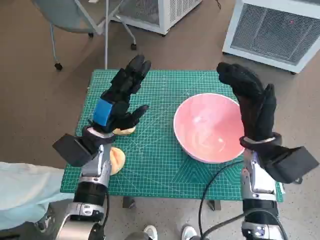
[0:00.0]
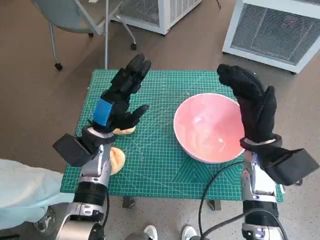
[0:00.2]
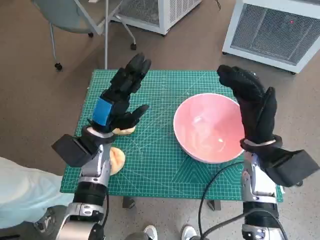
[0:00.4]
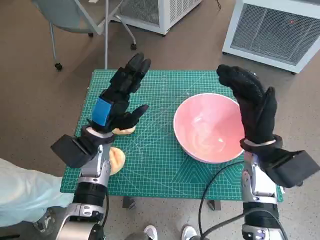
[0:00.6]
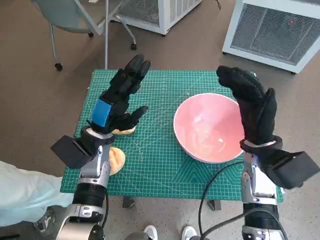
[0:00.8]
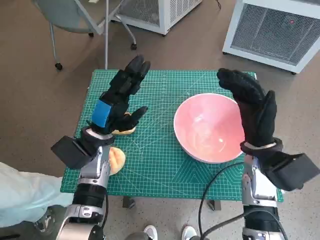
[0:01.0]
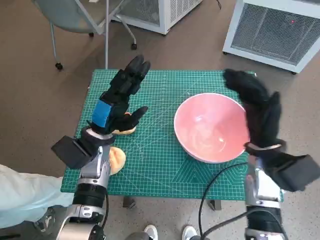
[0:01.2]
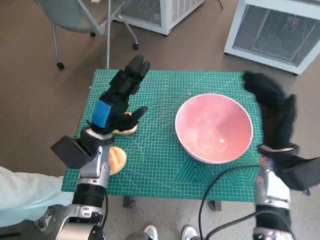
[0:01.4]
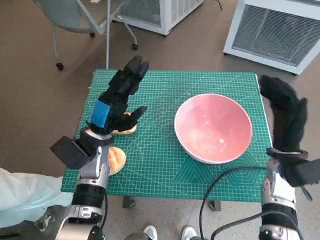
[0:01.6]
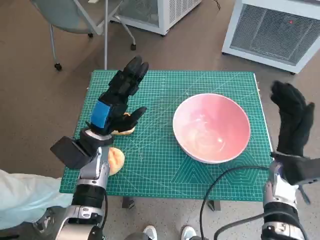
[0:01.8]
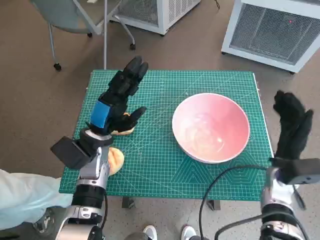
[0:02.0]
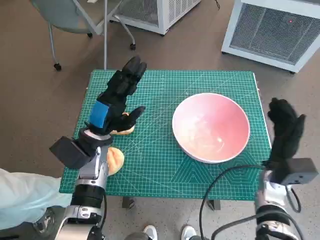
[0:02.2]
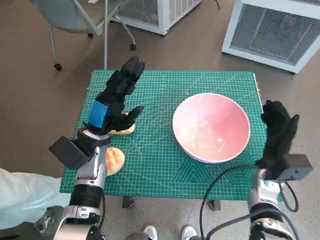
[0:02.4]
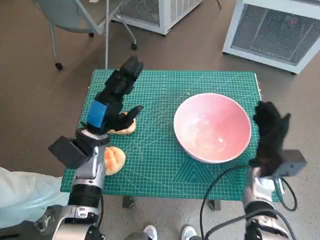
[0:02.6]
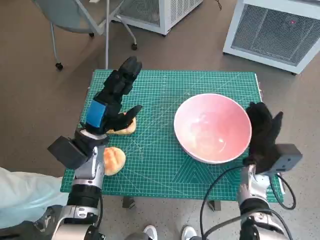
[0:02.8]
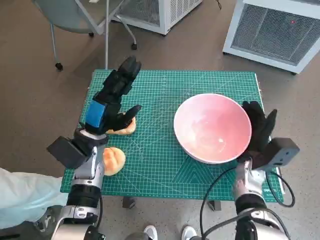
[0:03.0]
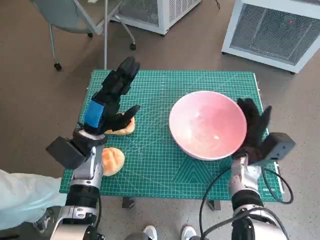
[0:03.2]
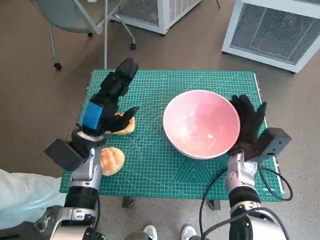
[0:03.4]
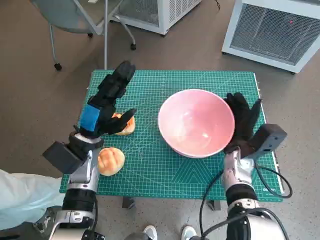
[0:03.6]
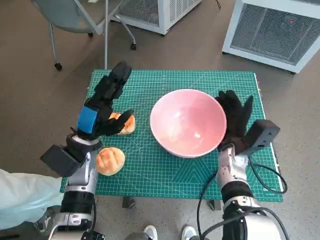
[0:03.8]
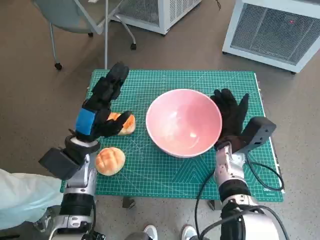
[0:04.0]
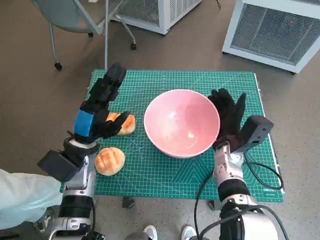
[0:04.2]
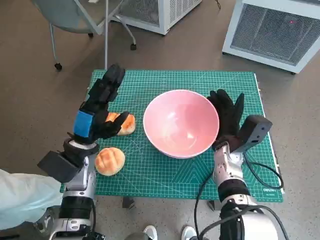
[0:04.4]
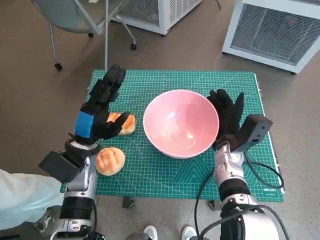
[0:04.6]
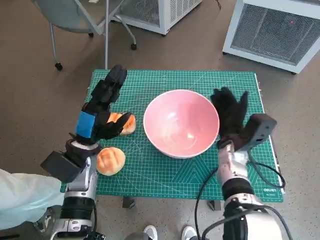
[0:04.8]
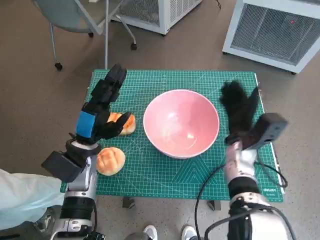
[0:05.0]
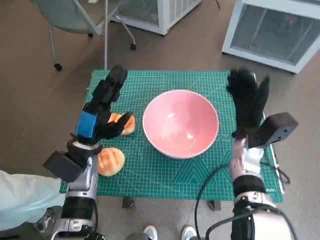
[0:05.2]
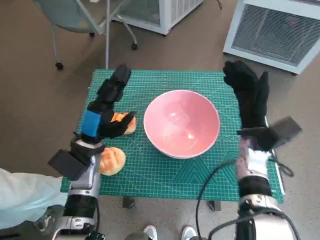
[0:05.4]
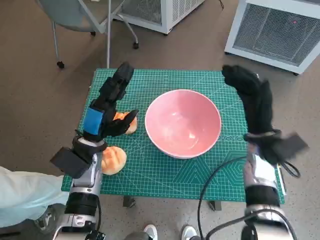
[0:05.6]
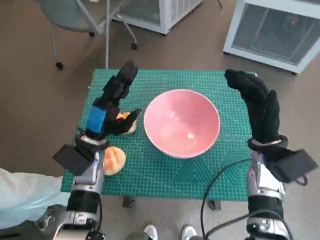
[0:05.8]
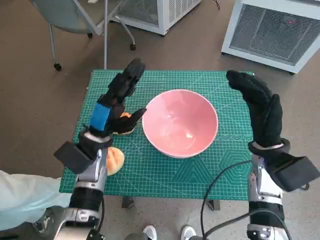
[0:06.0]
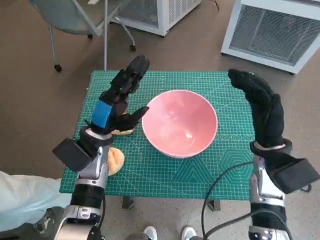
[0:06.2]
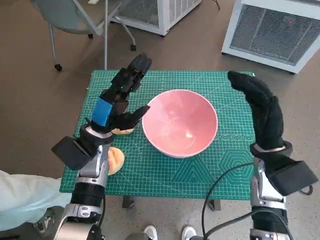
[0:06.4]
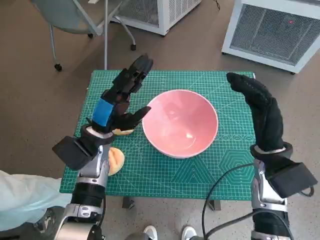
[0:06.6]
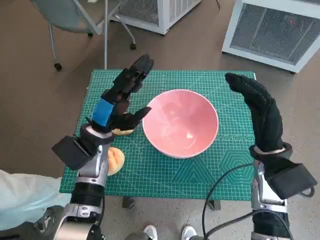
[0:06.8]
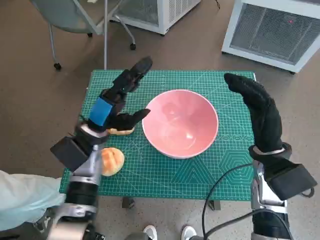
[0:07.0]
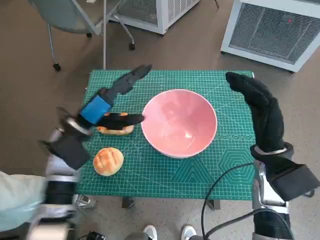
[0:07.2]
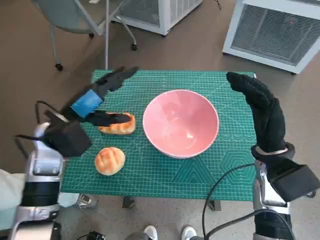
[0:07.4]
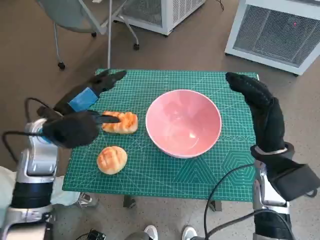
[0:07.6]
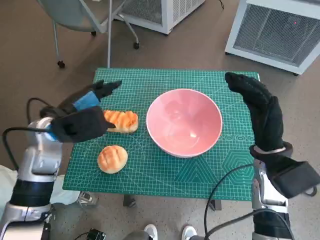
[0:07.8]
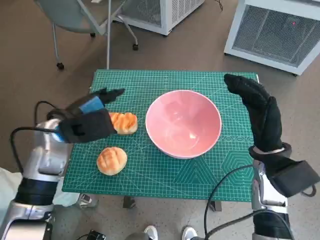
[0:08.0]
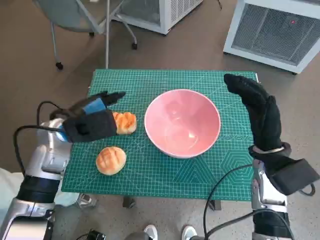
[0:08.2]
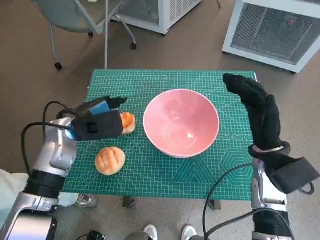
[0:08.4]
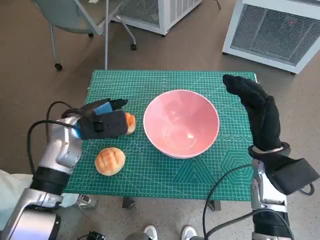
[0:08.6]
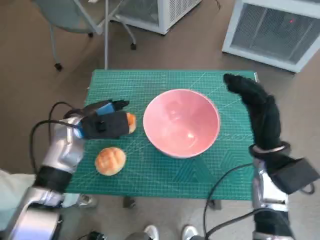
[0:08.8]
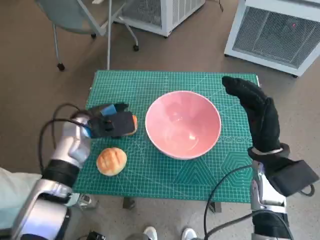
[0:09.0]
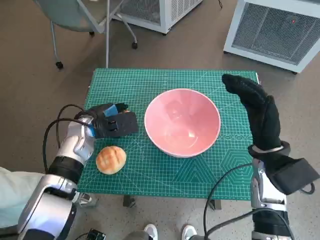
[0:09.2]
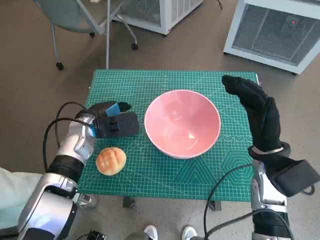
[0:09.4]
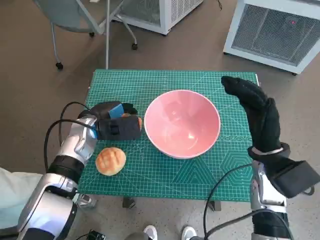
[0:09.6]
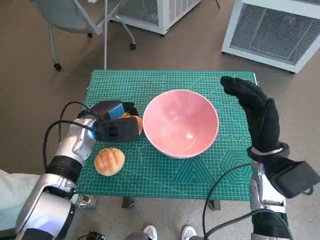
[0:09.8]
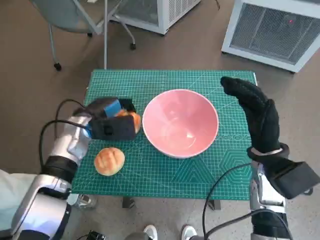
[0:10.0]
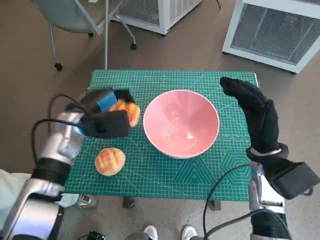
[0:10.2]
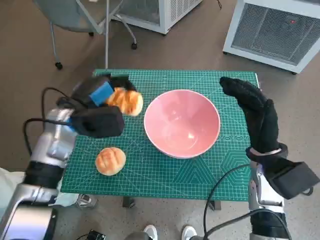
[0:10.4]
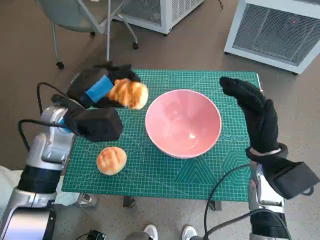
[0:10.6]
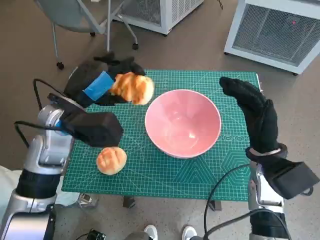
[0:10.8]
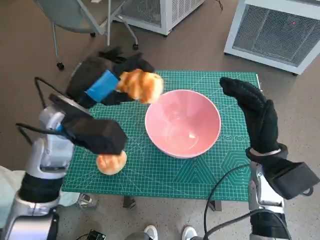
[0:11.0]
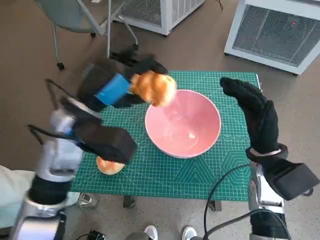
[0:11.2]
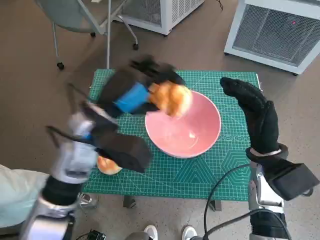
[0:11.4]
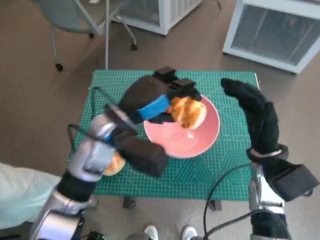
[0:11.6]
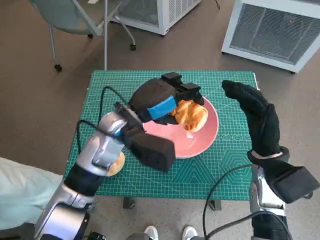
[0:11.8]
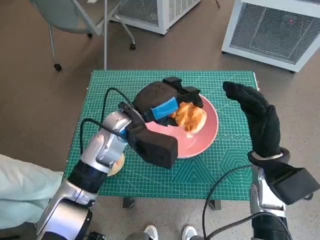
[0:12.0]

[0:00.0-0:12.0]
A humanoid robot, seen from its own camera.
Task of the whole recording: Push the bowl into the center of the table and put the bread into the bowl.
Step, 0:00.0 to 0:04.8: Move the pink bowl to the center of table with right hand.
Step, 0:05.0 to 0:09.6: Grasp the long bread with left hand.
0:01.6 to 0:03.0: The right hand is displaced downward by about 5 cm.
0:03.0 to 0:04.4: The right hand travels to the left by roughly 5 cm.
0:04.4 to 0:06.0: The right hand moves upward and to the right, some 10 cm.
0:06.0 to 0:07.6: The left hand heads upward and to the left, covering about 10 cm.
0:07.6 to 0:09.0: The left hand moves downward, some 5 cm.
0:10.4 to 0:12.0: The left hand goes some 10 cm to the right.

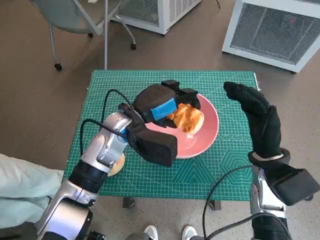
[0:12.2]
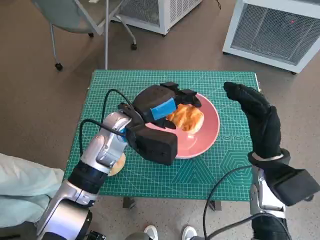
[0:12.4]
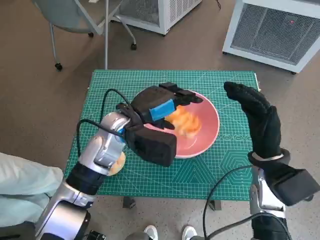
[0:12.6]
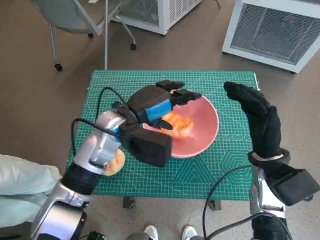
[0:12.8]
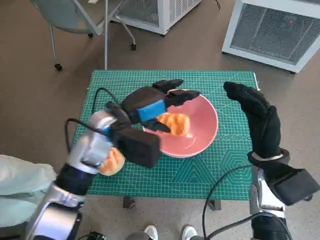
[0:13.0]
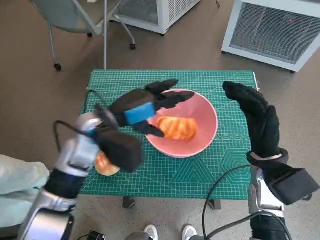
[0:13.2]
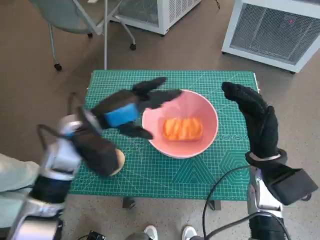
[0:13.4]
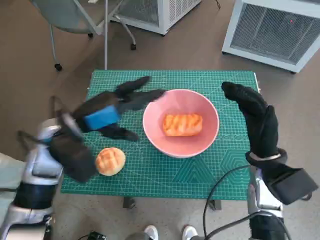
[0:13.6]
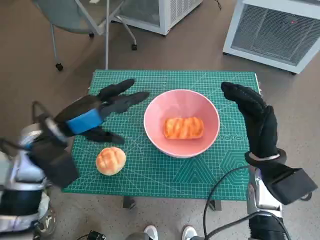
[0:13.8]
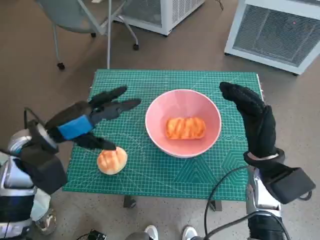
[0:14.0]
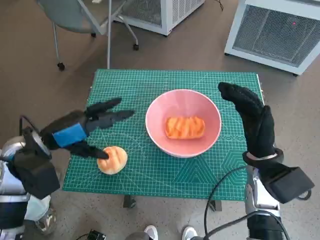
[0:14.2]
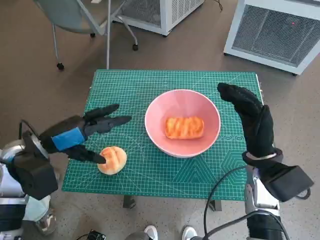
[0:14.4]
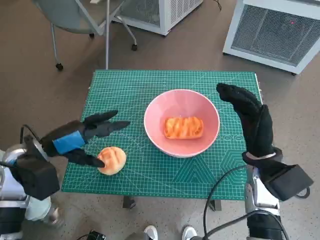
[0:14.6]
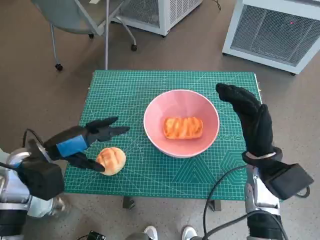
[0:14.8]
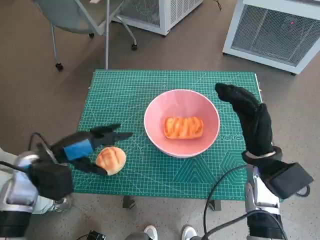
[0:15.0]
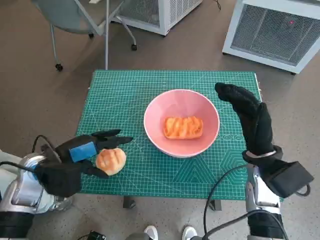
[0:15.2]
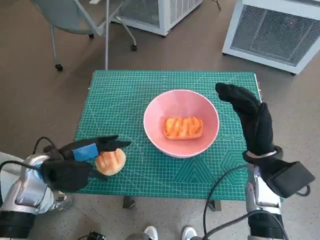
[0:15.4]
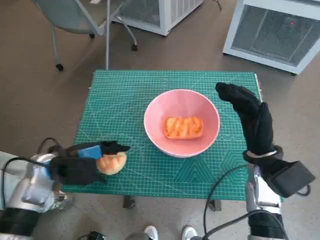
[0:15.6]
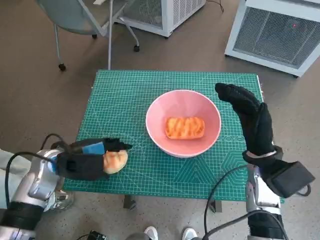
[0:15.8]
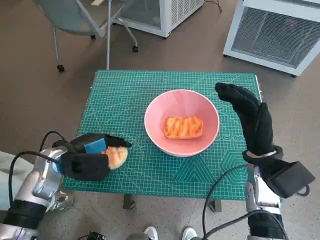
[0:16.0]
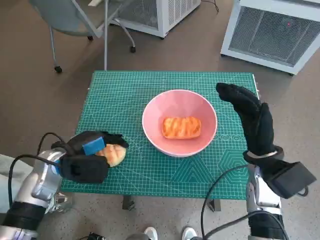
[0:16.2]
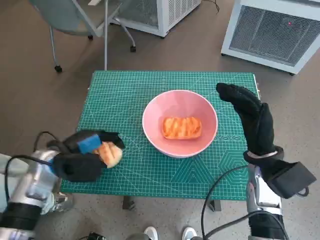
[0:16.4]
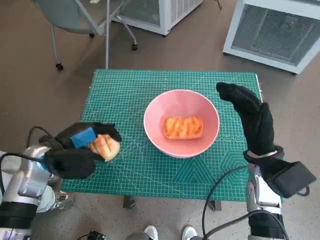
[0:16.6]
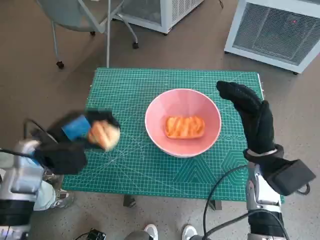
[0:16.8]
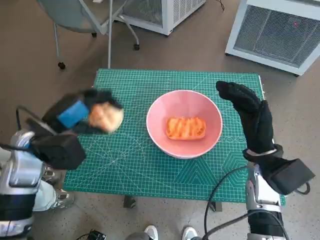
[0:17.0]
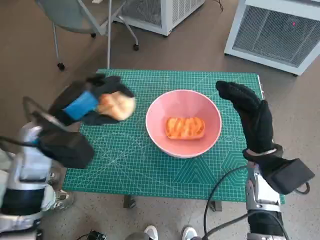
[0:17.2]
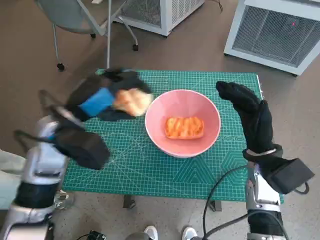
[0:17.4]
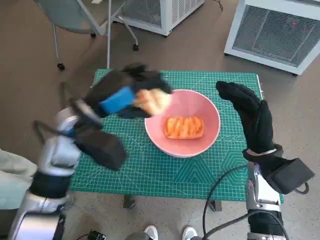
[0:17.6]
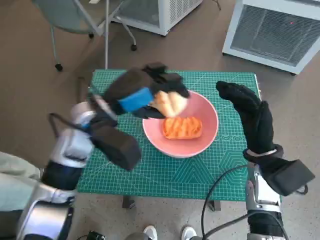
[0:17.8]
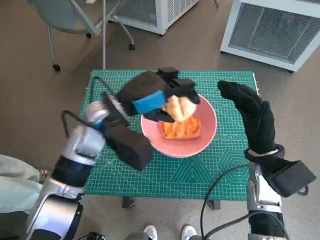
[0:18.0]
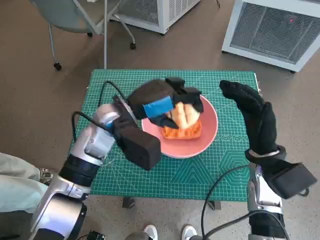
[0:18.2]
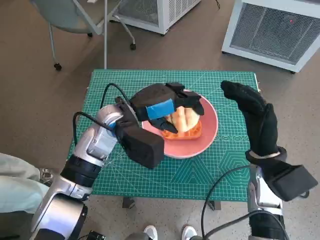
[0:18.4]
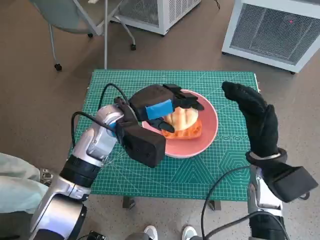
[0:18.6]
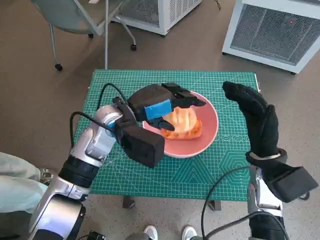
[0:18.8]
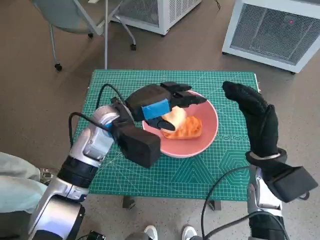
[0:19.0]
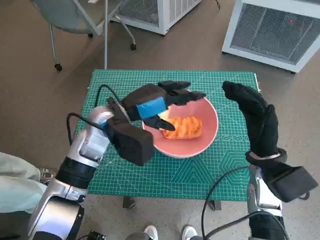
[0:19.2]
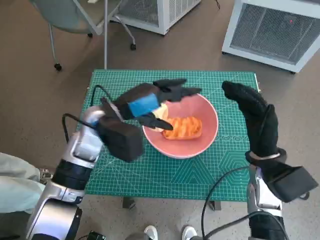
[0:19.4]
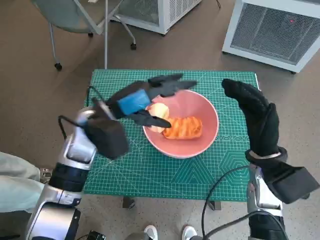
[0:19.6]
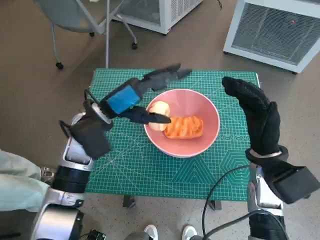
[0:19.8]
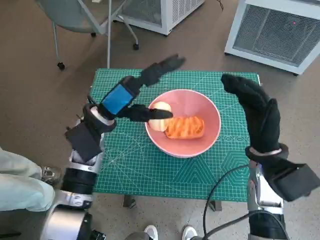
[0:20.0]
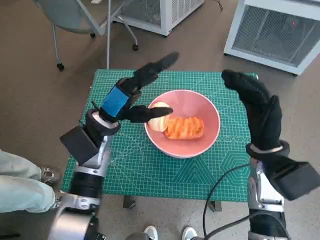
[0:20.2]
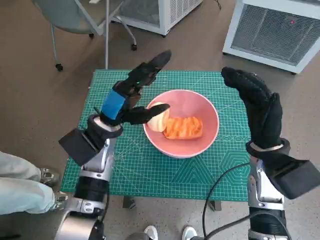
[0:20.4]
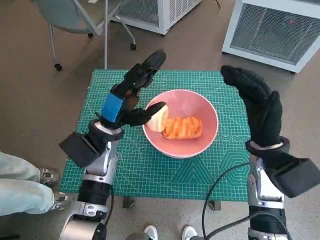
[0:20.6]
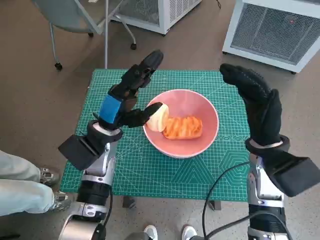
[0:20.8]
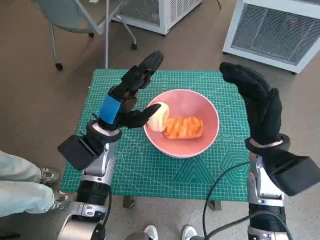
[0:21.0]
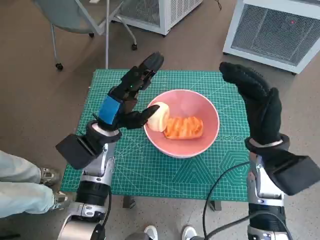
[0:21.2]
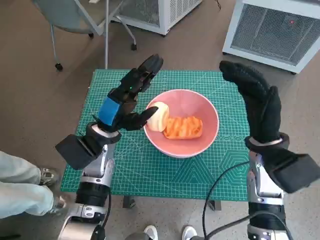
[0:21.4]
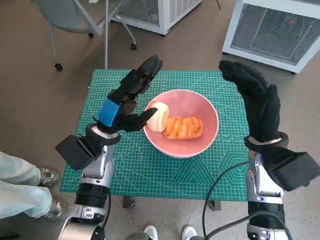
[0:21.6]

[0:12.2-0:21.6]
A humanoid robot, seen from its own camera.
Task of the whole recording: Push the bowl into the center of the table and put the bread into the bowl.
Step, 0:12.8 to 0:15.8: Grasp the round bread with left hand.
Step, 0:16.2 to 0:18.8: Place the round bread in pink bowl with left hand.
0:12.2 to 0:13.8: The left hand moves to the left, roughly 15 cm.
0:13.8 to 0:15.4: The left hand is displaced downward by roughly 5 cm.
0:15.4 to 0:17.0: The left hand moves upward, roughly 5 cm.
0:17.0 to 0:18.4: The left hand is displaced to the right by some 15 cm.

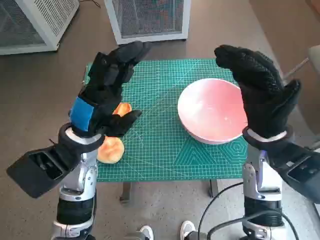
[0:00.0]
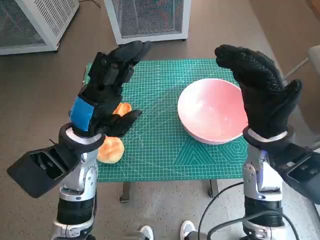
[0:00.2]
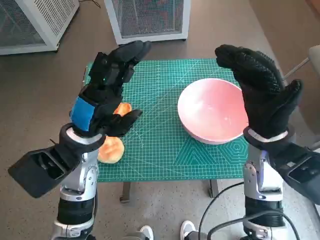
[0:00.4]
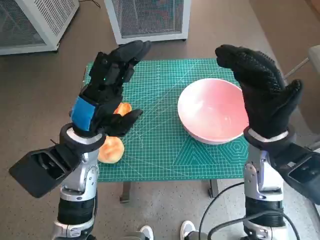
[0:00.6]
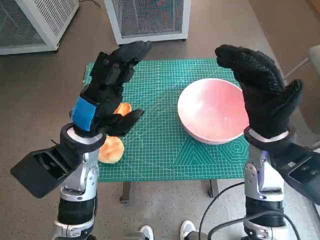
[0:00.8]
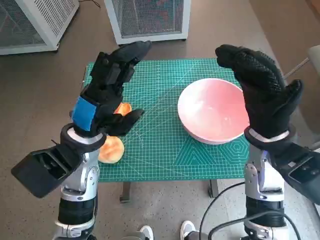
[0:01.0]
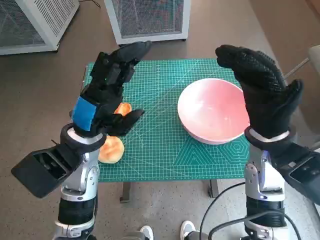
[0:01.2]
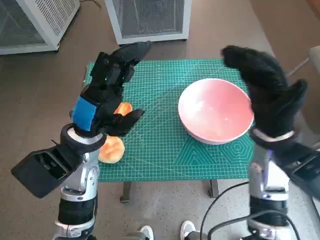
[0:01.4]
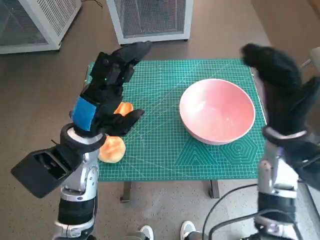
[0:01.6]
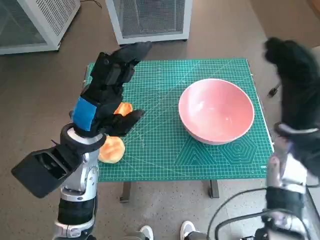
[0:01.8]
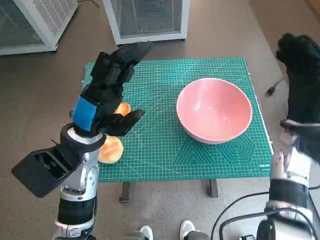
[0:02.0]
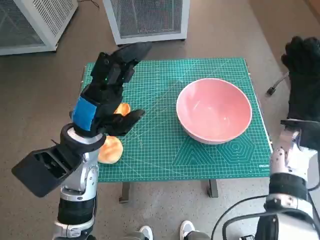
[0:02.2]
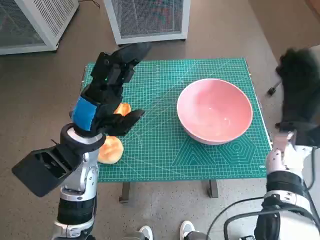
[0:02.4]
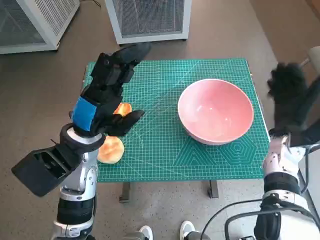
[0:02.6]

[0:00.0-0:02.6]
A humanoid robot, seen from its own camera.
Task of the whole recording: Push the bowl into the center of the table and put the bread into the bowl.
0:01.2 to 0:02.6: The right hand travels downward and to the right by roughly 10 cm.
